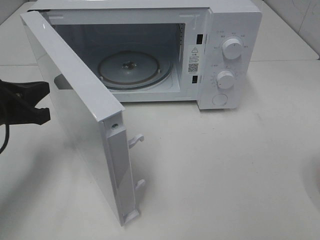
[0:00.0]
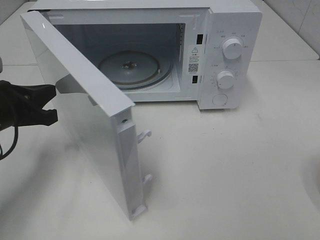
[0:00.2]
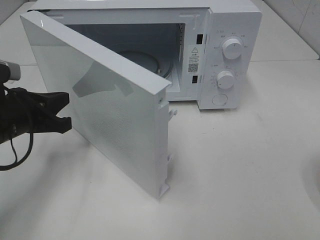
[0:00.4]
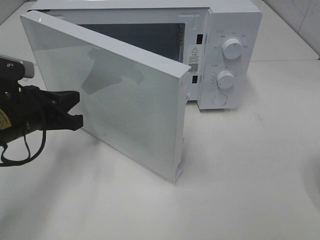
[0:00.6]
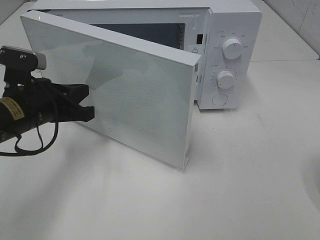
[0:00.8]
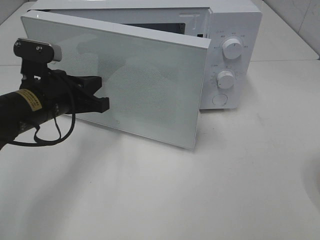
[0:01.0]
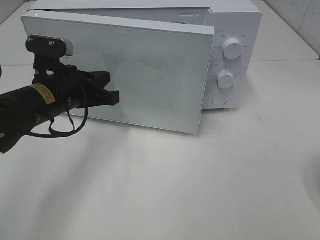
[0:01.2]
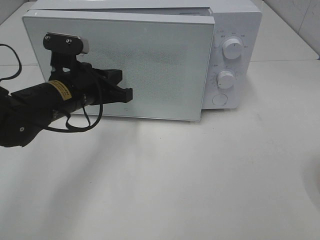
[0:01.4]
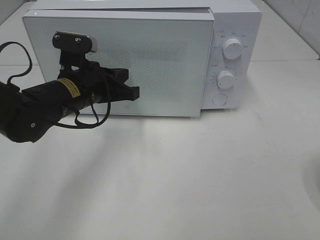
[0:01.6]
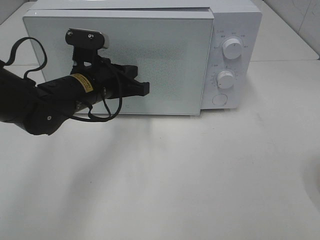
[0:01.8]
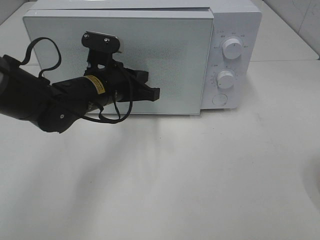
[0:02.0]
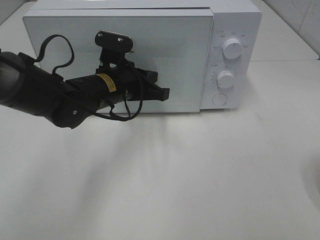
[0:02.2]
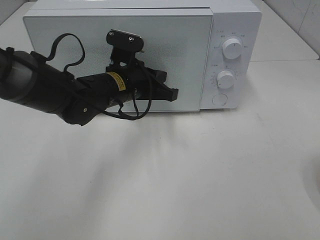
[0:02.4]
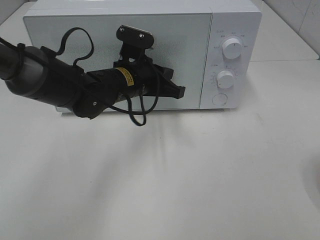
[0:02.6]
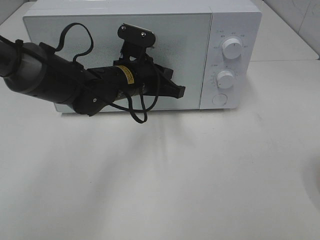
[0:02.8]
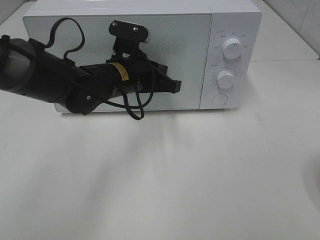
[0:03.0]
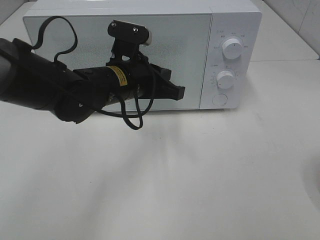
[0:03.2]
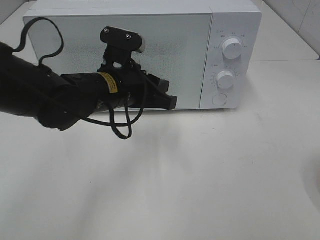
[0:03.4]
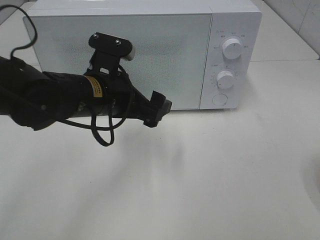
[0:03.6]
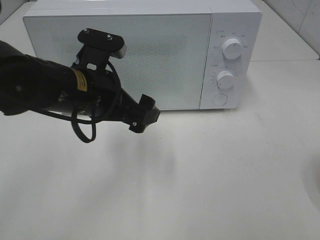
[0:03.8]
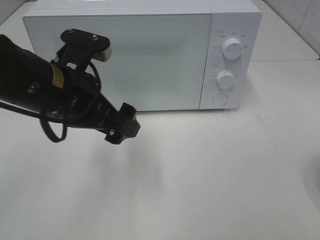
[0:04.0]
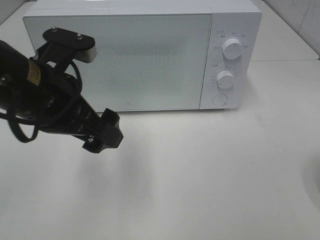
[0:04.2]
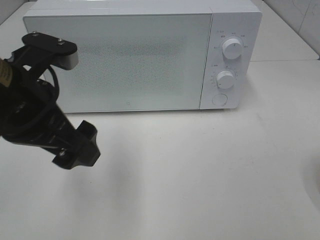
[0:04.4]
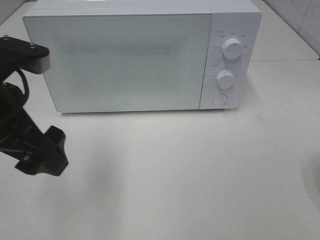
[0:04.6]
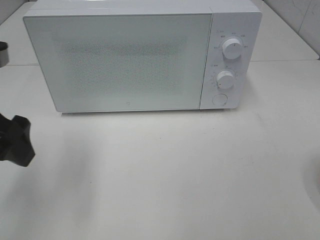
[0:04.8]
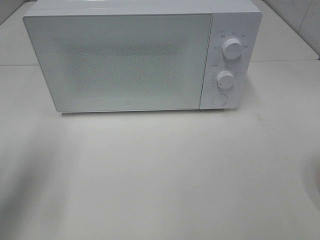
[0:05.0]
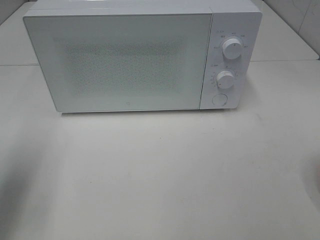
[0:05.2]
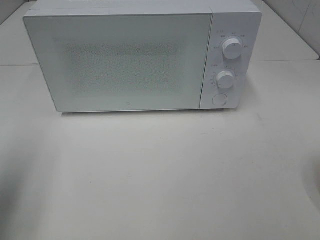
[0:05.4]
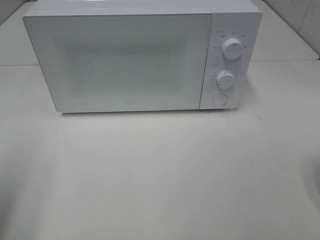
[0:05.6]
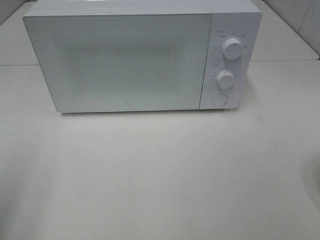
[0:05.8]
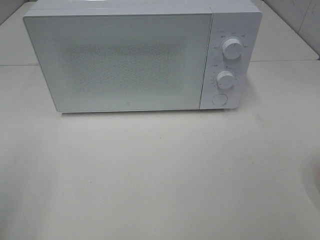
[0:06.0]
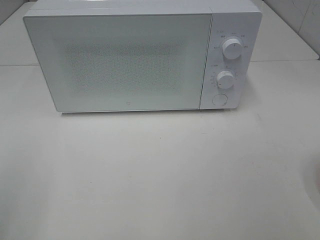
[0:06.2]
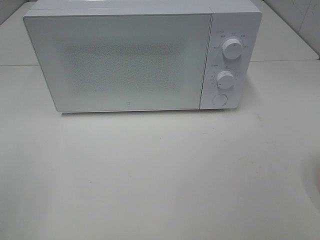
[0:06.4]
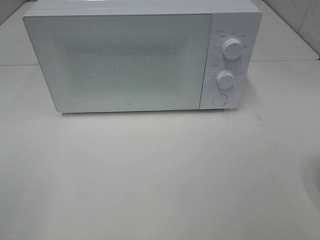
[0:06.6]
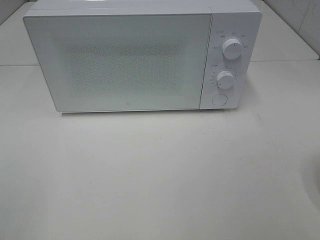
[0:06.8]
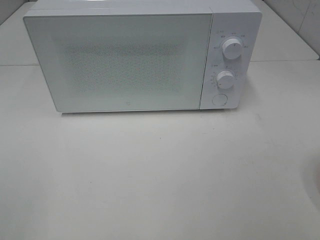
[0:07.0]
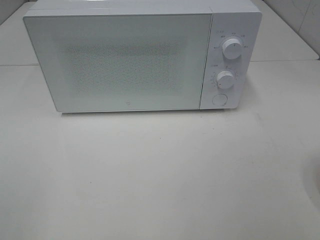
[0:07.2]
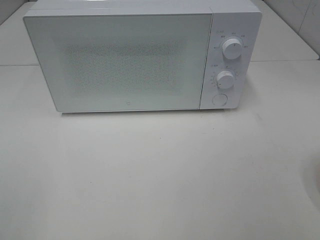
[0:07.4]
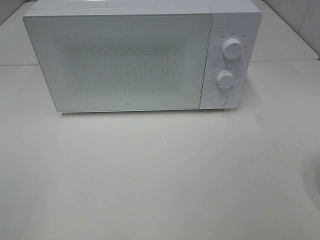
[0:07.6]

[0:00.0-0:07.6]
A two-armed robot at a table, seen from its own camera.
Task of the whole recording: Heat the burger.
Step, 0:00.0 to 0:03.0: Left hand: close the microwave door.
0:00.0 to 0:01.6: The left gripper is displaced to the right and forward by about 15 cm.
0:01.6 to 0:03.0: The left gripper shifts approximately 5 cm to the right.
0:03.0 to 0:04.6: The left gripper goes about 20 cm backward, to the left and upward, and opens its fingers.
0:04.6 to 0:06.0: The left gripper shifts approximately 20 cm to the left and backward.
